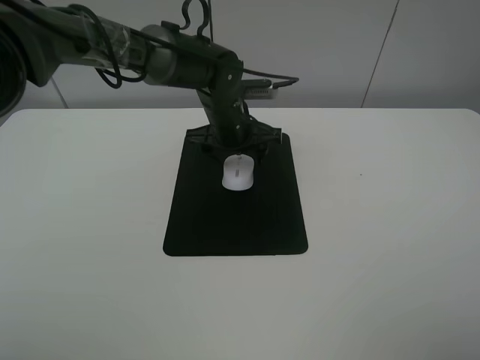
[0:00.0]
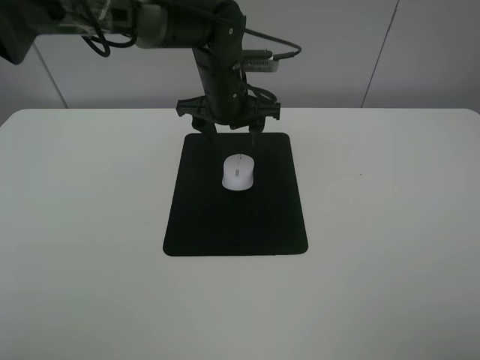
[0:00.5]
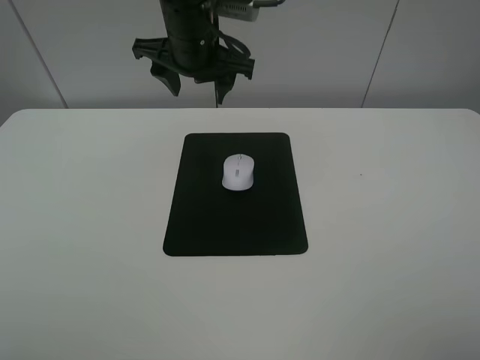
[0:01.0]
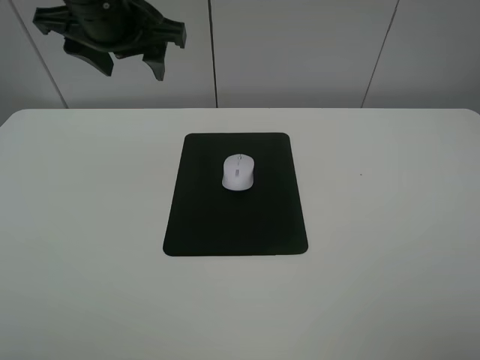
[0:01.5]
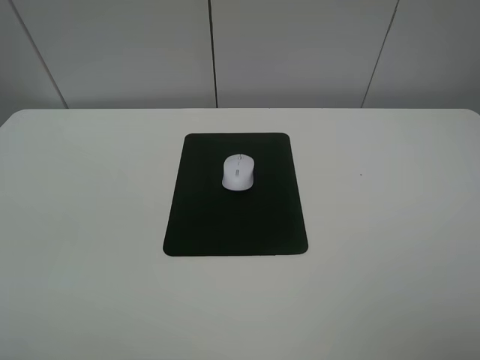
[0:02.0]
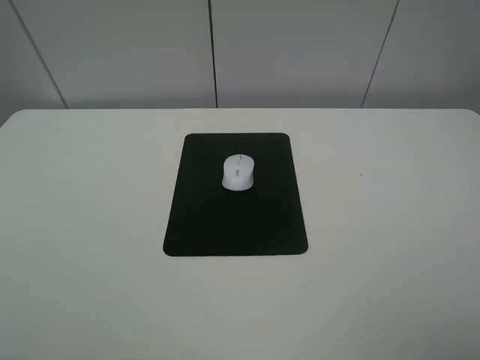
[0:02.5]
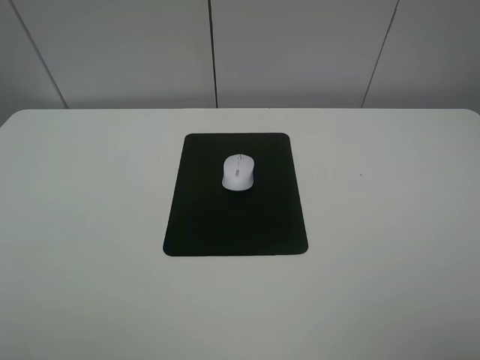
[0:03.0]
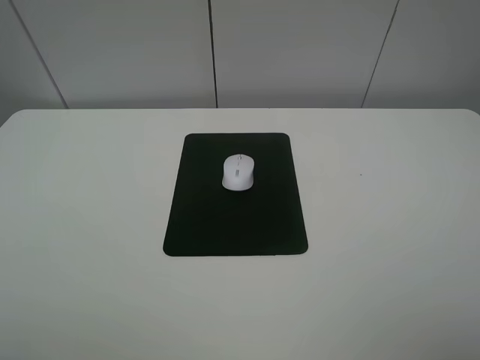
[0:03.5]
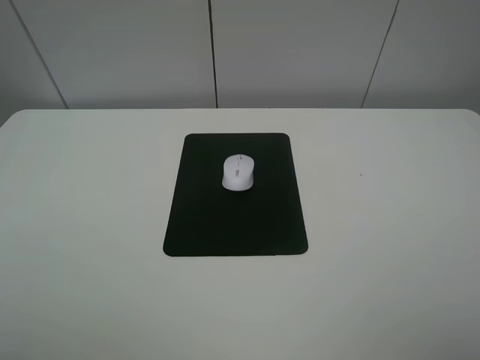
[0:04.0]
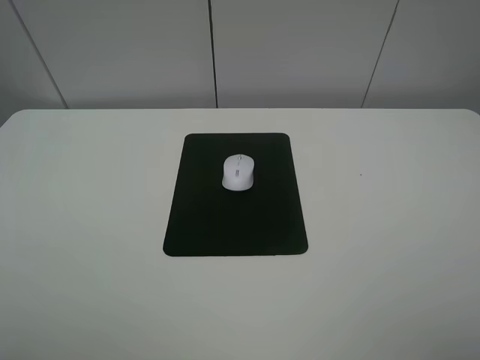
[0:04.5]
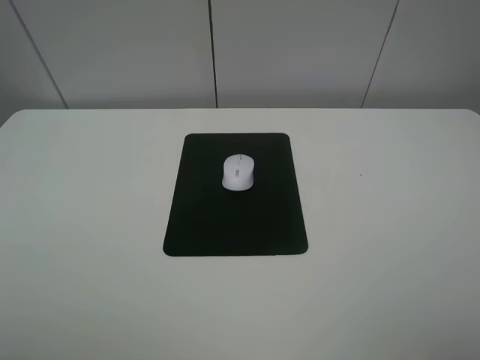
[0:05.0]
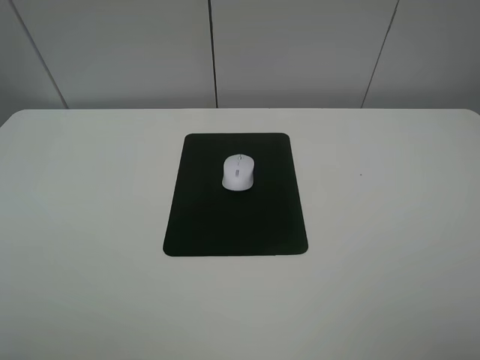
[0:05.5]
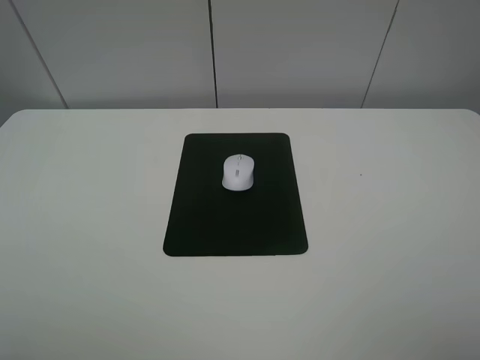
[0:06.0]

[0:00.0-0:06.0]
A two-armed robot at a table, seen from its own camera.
0:00.0 to 0:02.0: The left gripper shifts about 40 cm to the left, upward and backward.
